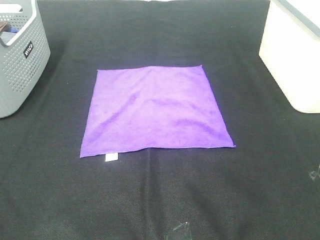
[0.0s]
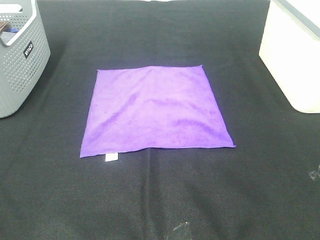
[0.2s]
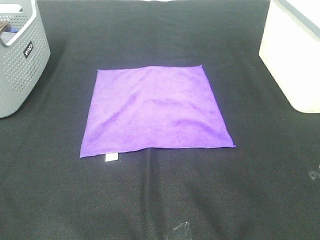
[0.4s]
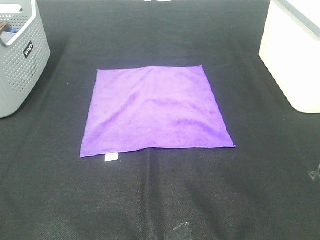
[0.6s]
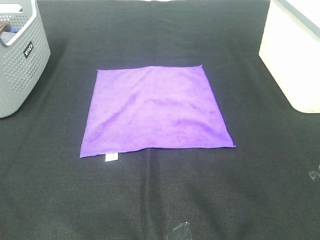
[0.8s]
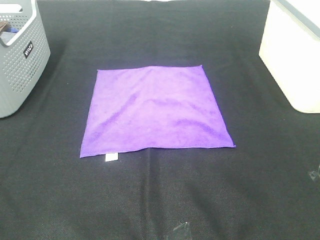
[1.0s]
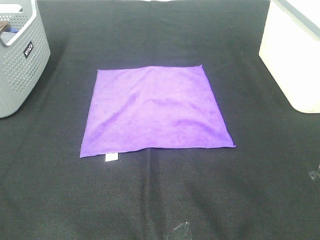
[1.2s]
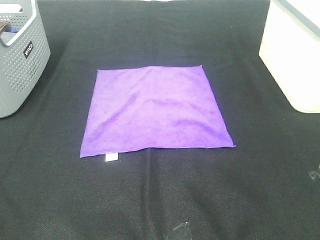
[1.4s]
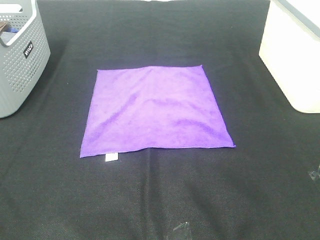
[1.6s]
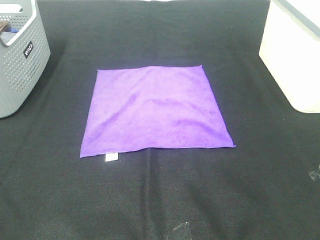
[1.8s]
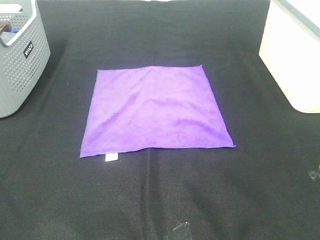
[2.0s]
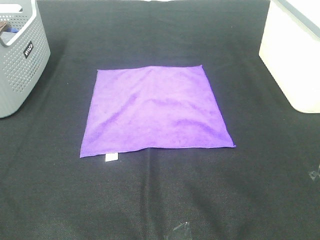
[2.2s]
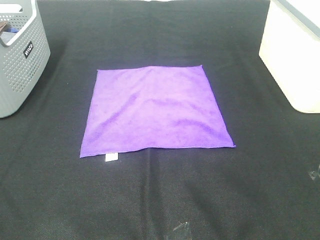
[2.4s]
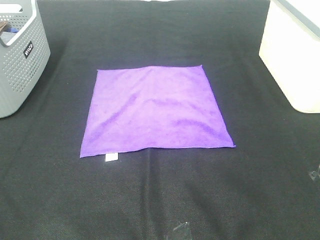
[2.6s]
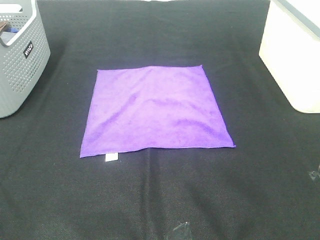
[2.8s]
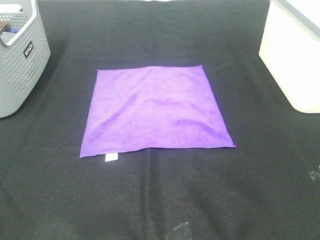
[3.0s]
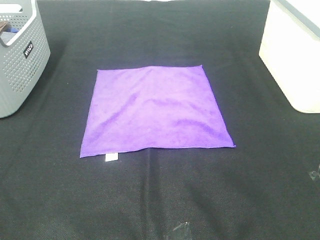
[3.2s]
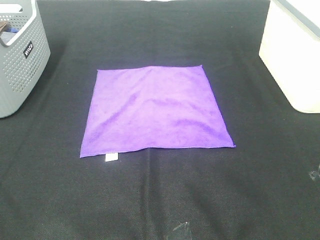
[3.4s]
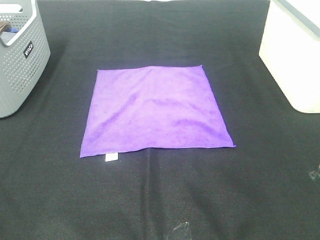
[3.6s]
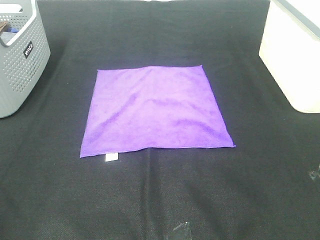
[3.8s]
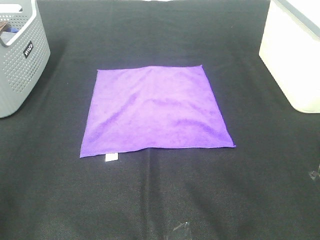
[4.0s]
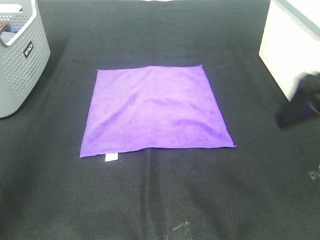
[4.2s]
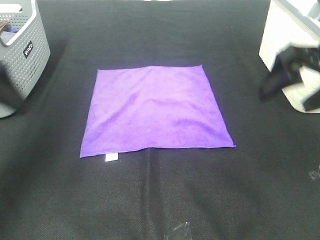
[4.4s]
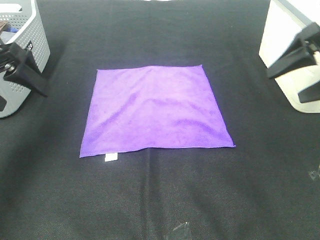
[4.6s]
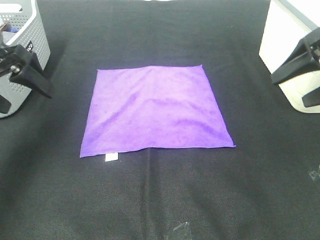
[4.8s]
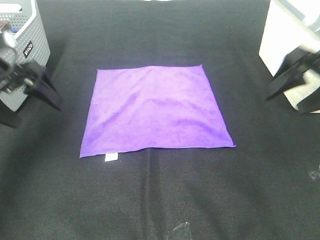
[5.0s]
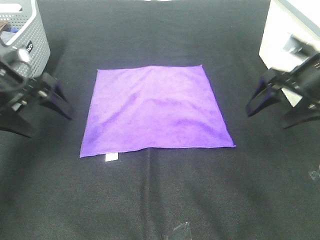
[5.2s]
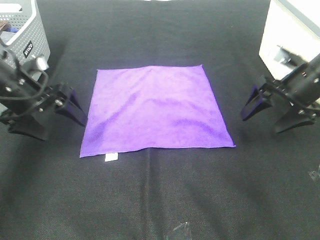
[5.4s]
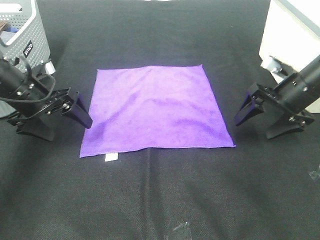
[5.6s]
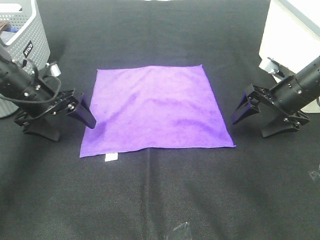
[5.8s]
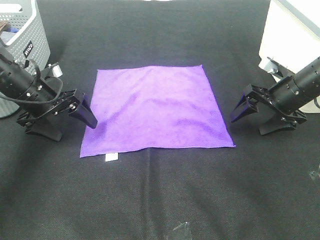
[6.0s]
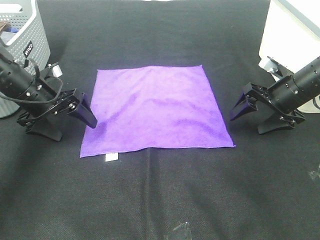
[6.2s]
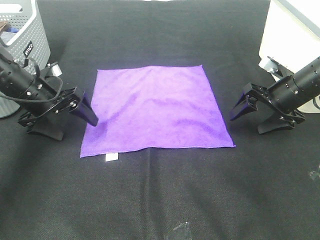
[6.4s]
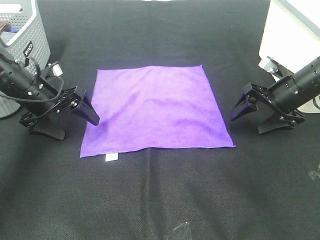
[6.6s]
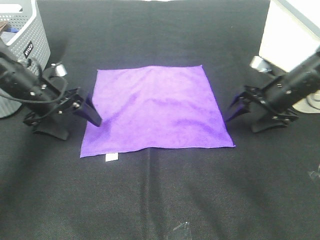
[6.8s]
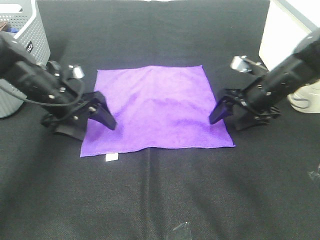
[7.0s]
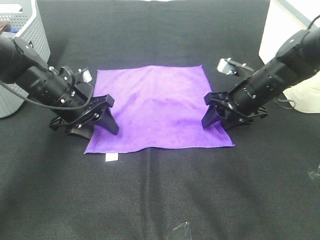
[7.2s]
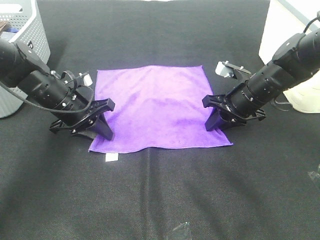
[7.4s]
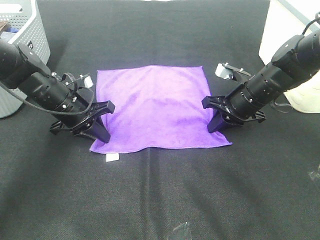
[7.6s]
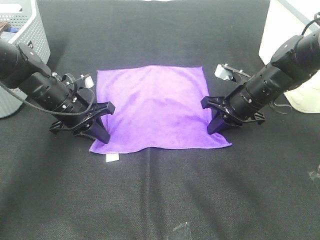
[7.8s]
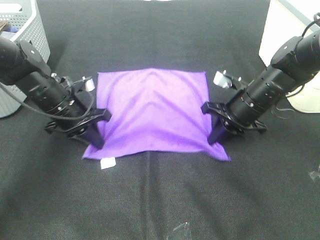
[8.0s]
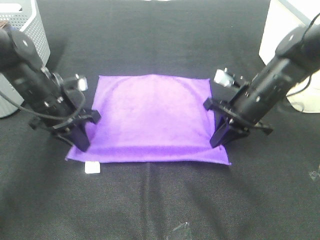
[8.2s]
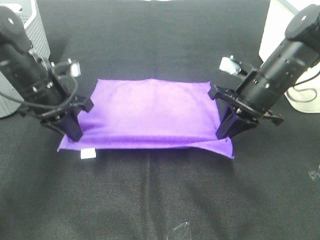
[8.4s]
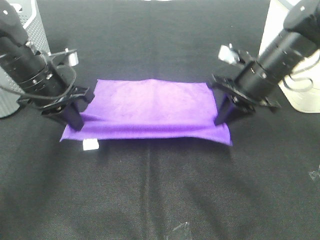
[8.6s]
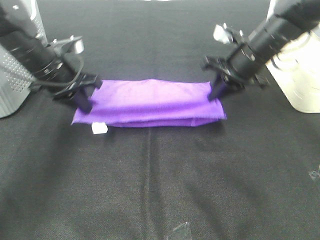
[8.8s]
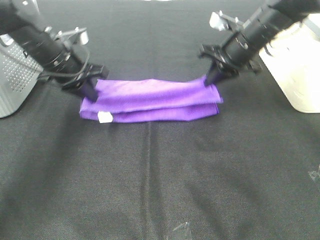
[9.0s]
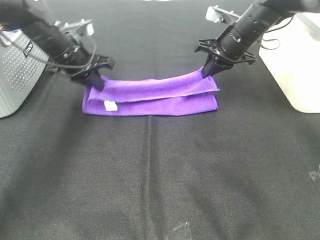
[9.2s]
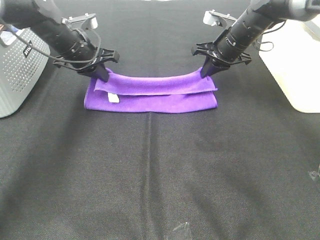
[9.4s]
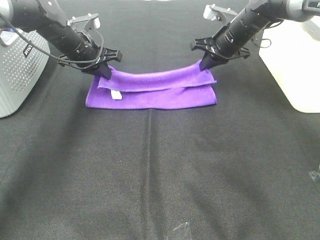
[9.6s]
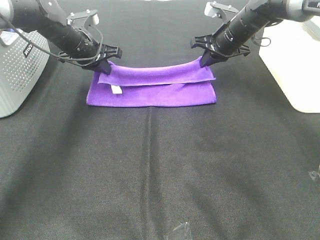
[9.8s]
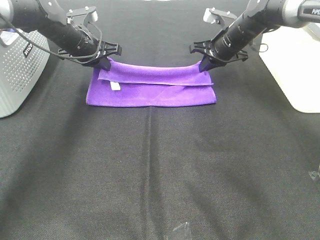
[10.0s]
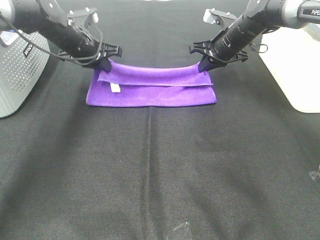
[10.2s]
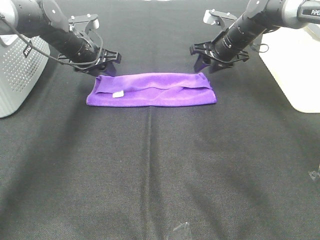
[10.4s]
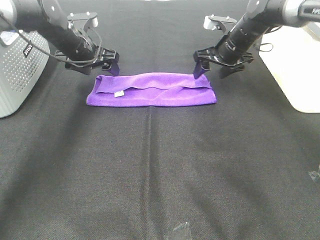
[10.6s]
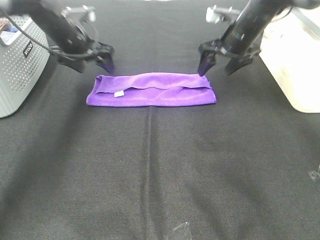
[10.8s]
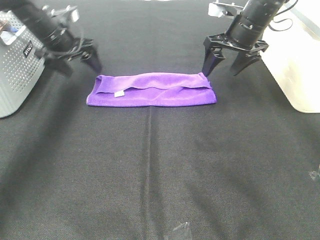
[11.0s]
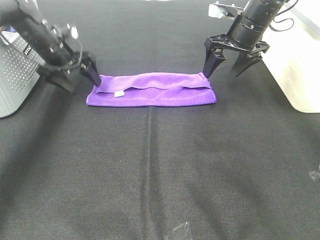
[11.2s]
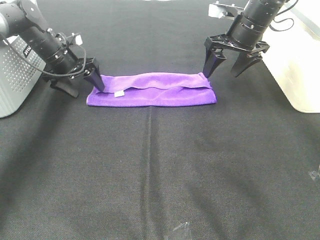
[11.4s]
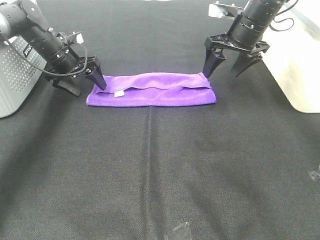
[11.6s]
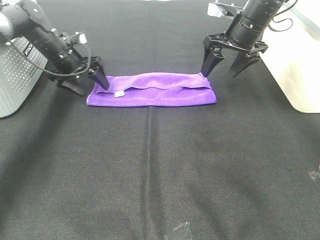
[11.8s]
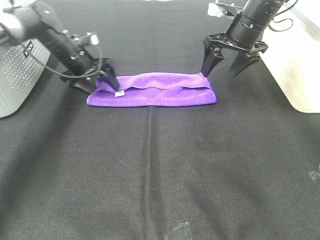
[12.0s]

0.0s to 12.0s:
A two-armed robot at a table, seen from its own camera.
Task of the whole recording: Fold towels.
Step, 0.0s to 7.6s: Left hand: grab the bottom left corner of purple towel.
Step, 0.0s to 7.6s: Right hand: grab the bottom right corner of purple towel.
Step, 7.8s to 10.2s: Left hand: fold the purple towel up.
Step, 7.8s to 10.2s: Right hand: fold the purple towel up.
0.0s to 3.0s: Both grippers stay about where they are.
3.0s to 4.4s: The two grippers go some 30 cm forward.
4.4s to 6.0s: Both grippers move downward and forward, approximately 20 cm.
6.0s to 7.6s: The left gripper heads to the right, covering roughly 5 cm, and closes up, while the right gripper moves to the left, some 10 cm, and closes its fingers.
7.6s to 9.0s: The two grippers go roughly 10 cm upward and forward.
9.0s to 10.4s: The grippers both shift forward by approximately 5 cm. The right gripper opens. Meanwhile the left gripper opens up.
10.4s to 12.0s: The left gripper shifts by roughly 5 cm. Meanwhile the right gripper is displaced upward by approximately 5 cm.

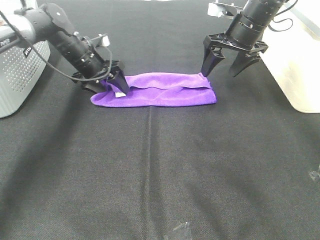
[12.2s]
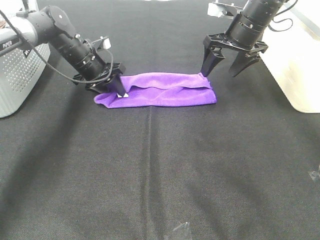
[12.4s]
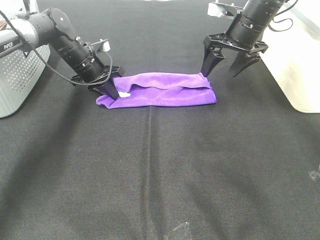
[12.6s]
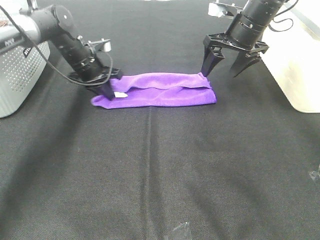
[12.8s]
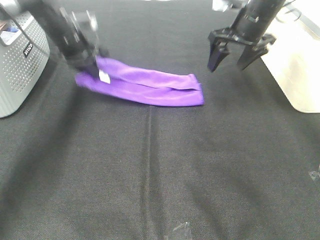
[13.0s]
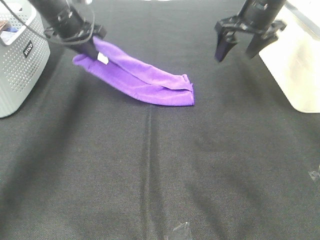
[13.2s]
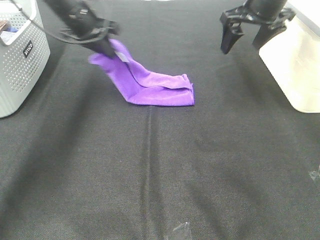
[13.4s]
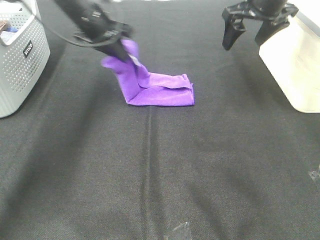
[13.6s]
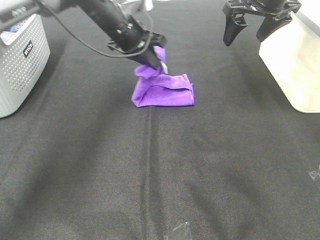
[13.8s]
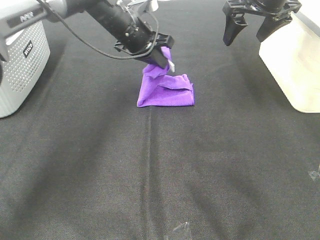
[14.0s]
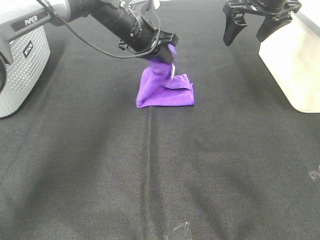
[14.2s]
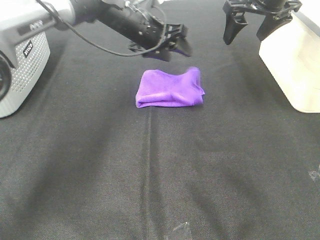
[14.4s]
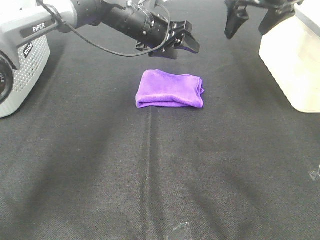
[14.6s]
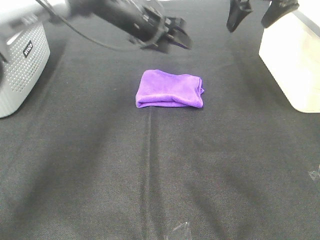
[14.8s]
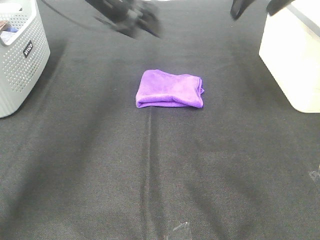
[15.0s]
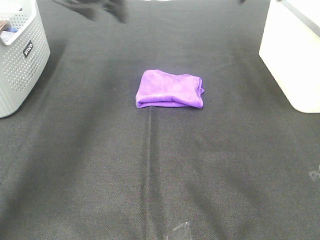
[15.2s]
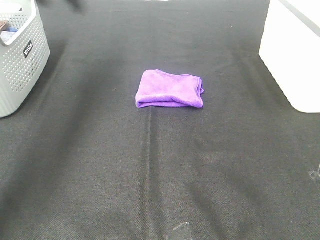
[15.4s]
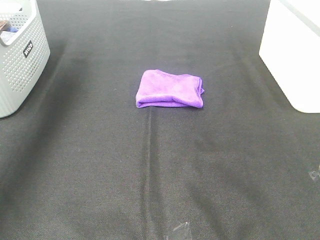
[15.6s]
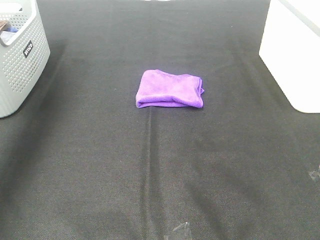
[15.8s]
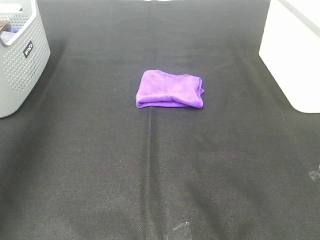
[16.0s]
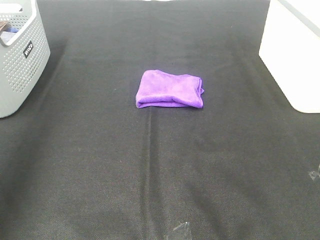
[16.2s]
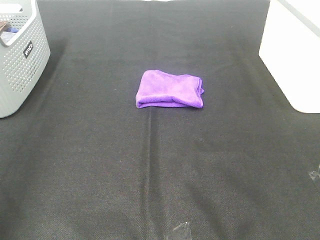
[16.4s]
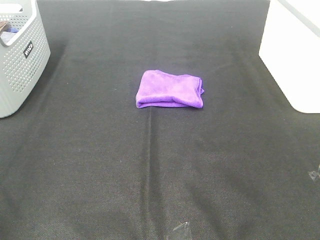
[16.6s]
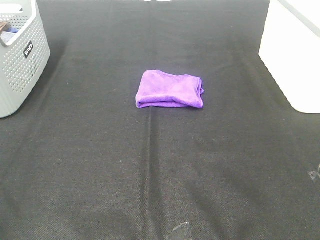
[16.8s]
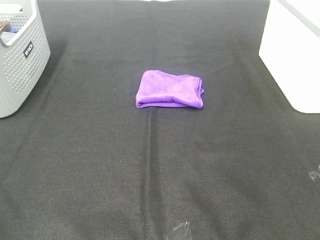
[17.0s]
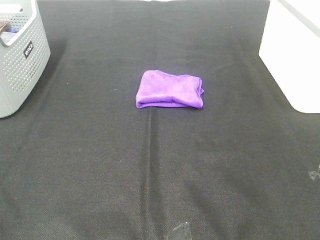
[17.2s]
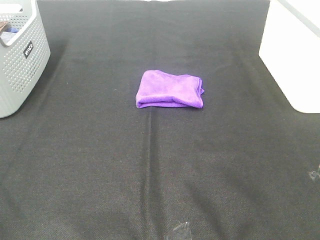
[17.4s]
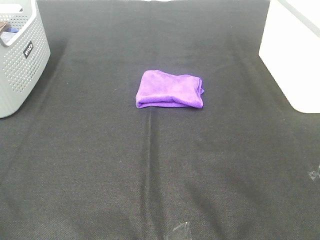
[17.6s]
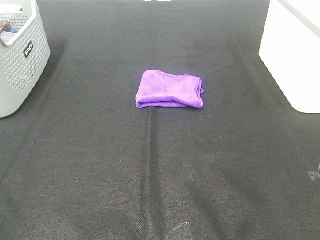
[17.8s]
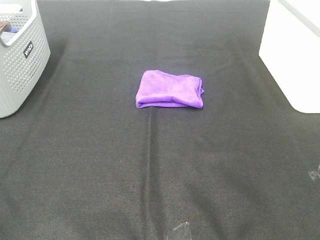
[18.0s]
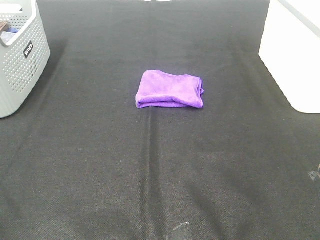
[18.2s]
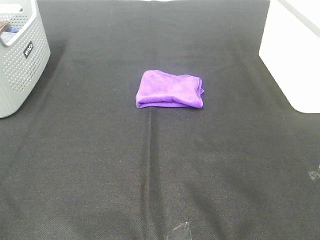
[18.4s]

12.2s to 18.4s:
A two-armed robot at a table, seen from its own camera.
Task of the whole recording: Fold towels.
12.2s to 13.8s: The right gripper heads upward, covering roughly 10 cm. Meanwhile the left gripper shifts approximately 15 cm to the right and upward, and closes.
13.8s to 15.4s: The left gripper heads to the left and upward, covering some 20 cm, and opens its fingers. Meanwhile the right gripper goes roughly 15 cm upward and backward.
15.4s to 16.8s: The left gripper moves backward, some 50 cm.

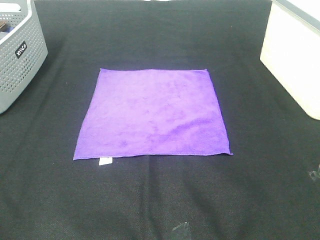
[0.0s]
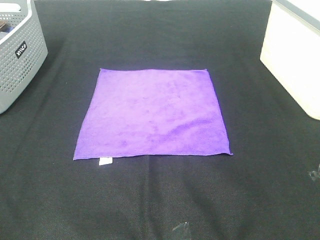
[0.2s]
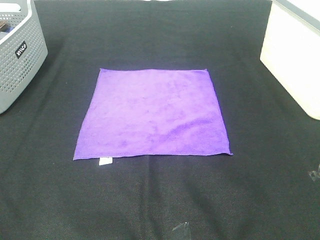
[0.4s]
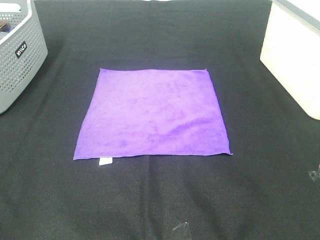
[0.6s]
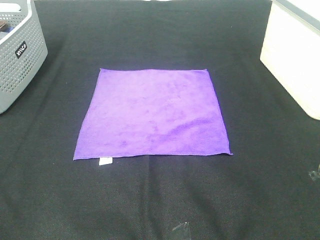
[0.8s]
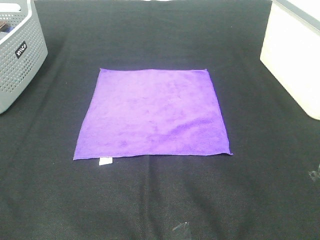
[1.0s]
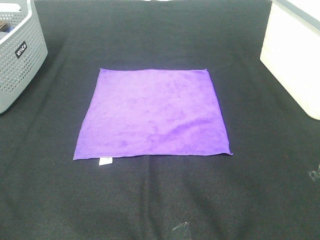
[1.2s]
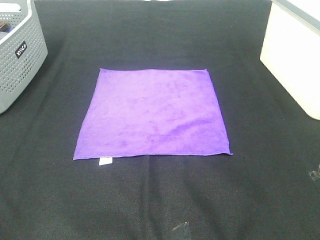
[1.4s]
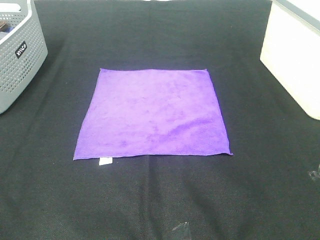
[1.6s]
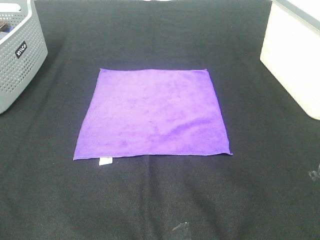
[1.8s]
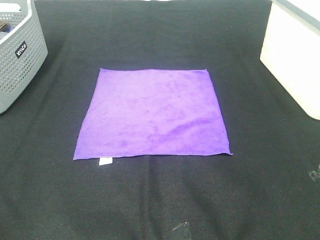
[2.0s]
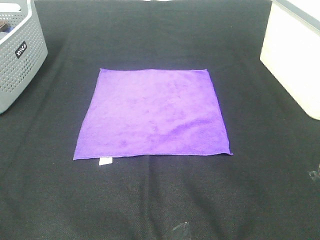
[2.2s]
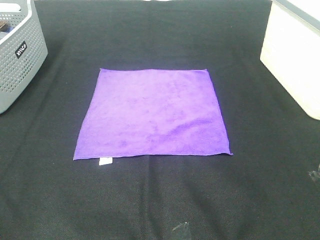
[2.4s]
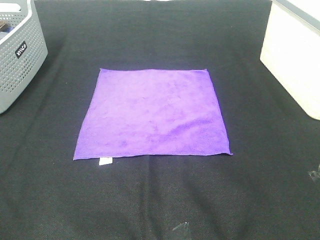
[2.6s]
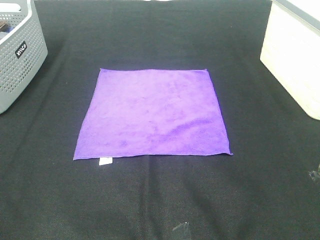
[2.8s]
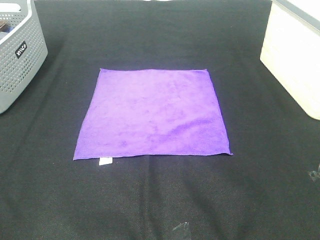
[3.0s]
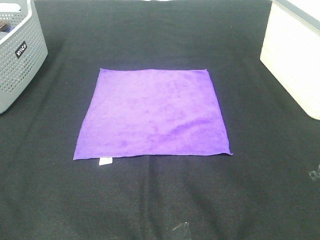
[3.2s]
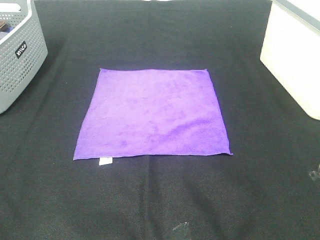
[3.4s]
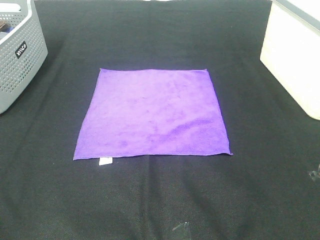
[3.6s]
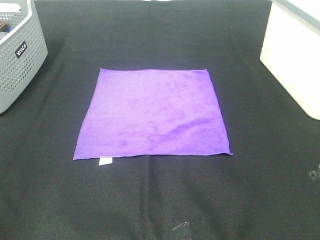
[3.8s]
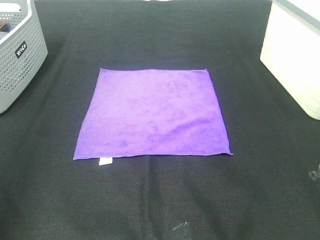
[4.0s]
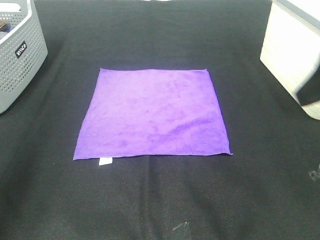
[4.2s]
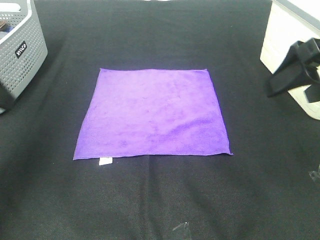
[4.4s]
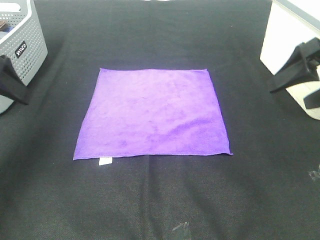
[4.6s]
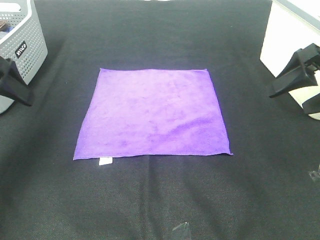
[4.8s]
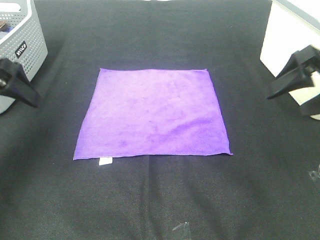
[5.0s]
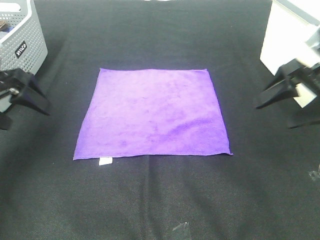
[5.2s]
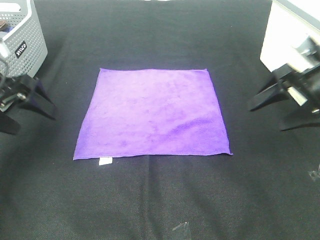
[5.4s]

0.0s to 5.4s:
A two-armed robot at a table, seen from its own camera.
Task of the whole recording: Fold towels.
0.0s to 2.8s: Both grippers stay put.
4.0s to 5.4s: The grippers both shift forward and downward by roughly 25 cm.
